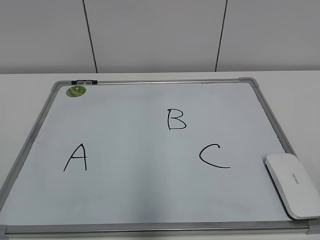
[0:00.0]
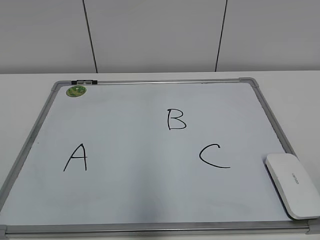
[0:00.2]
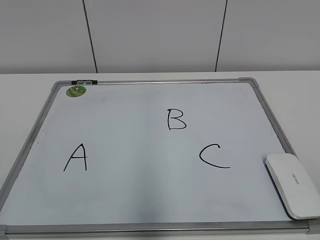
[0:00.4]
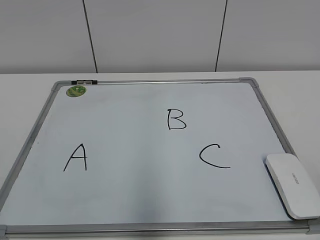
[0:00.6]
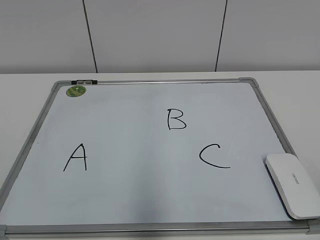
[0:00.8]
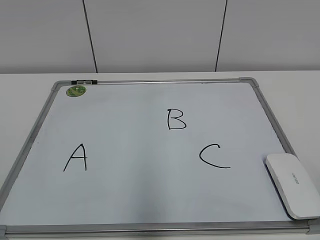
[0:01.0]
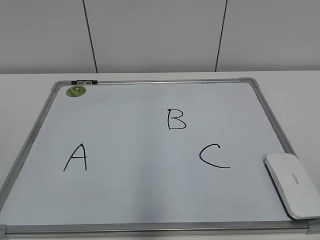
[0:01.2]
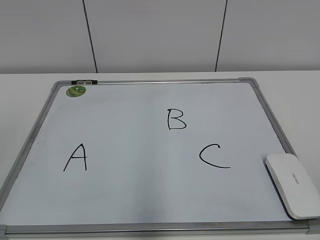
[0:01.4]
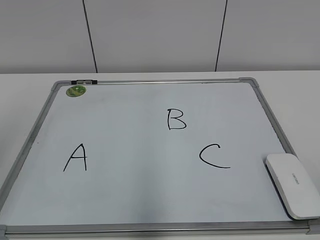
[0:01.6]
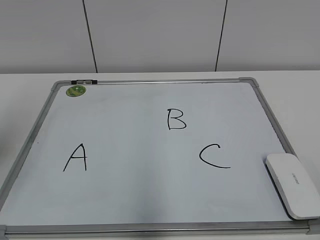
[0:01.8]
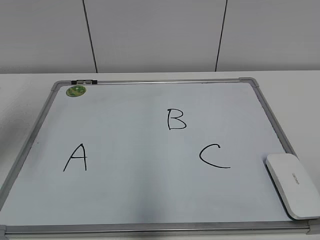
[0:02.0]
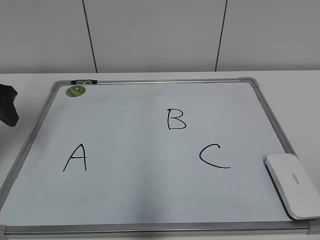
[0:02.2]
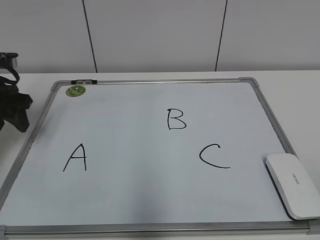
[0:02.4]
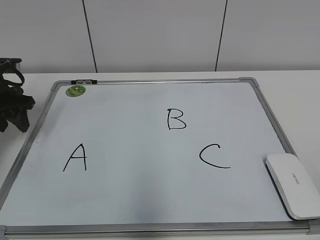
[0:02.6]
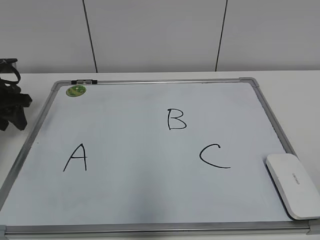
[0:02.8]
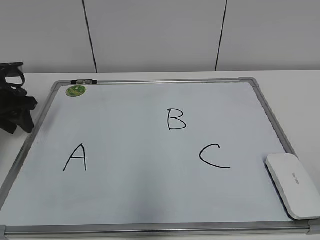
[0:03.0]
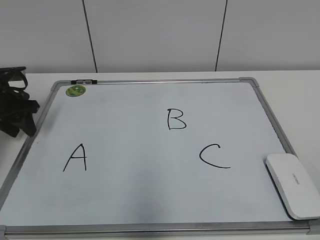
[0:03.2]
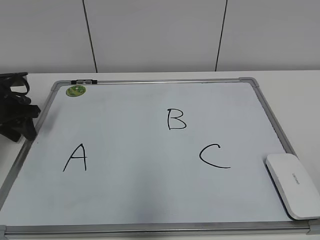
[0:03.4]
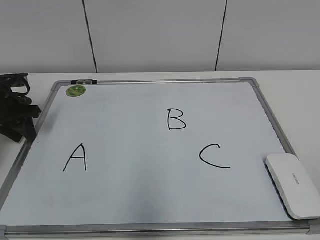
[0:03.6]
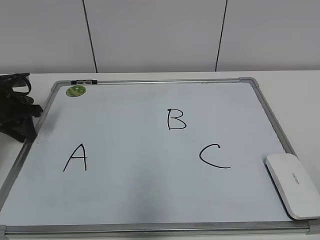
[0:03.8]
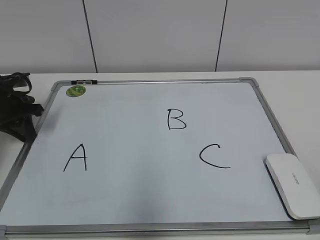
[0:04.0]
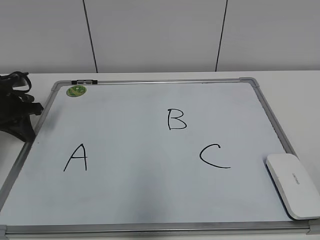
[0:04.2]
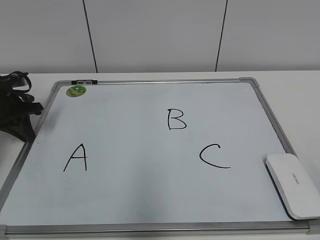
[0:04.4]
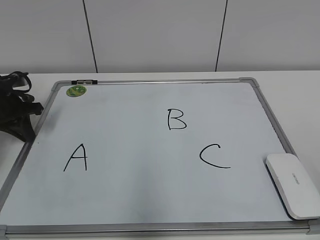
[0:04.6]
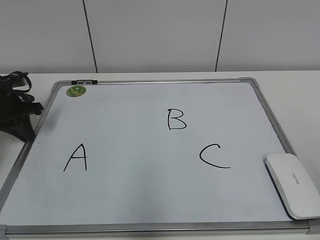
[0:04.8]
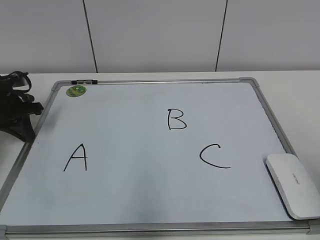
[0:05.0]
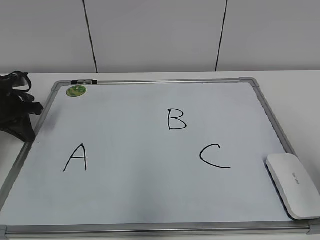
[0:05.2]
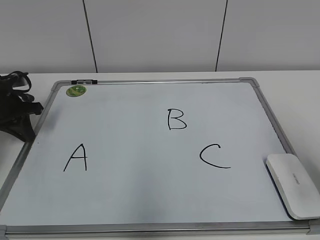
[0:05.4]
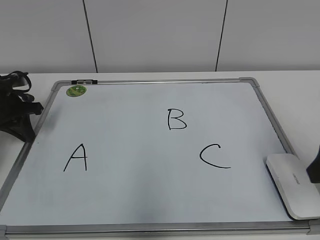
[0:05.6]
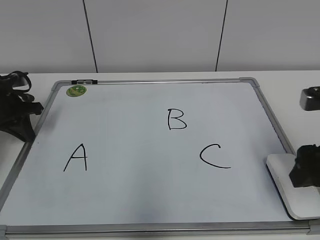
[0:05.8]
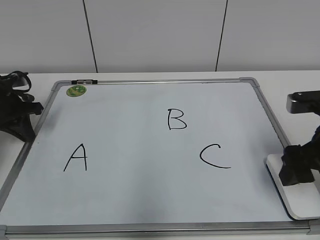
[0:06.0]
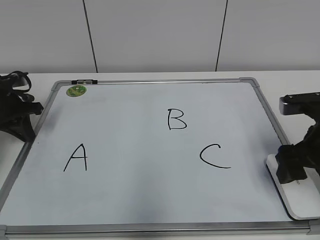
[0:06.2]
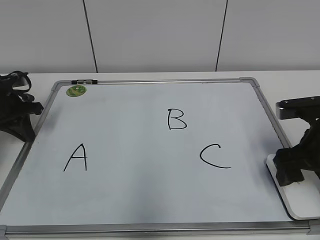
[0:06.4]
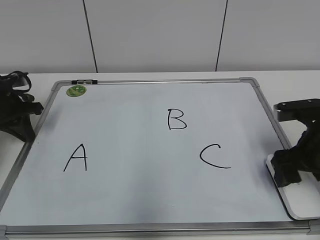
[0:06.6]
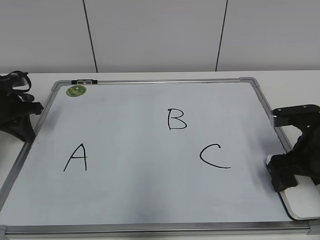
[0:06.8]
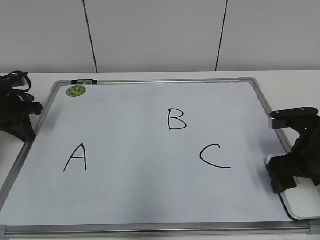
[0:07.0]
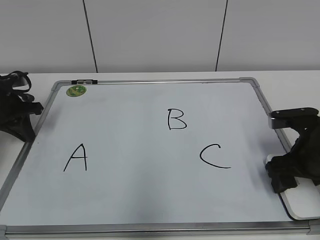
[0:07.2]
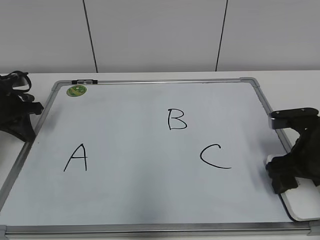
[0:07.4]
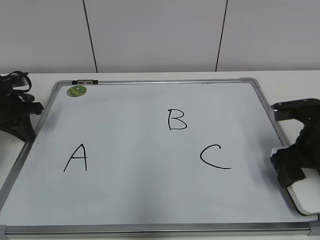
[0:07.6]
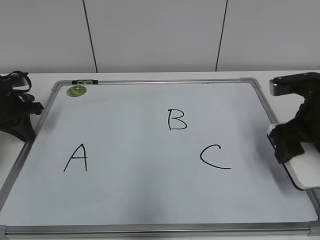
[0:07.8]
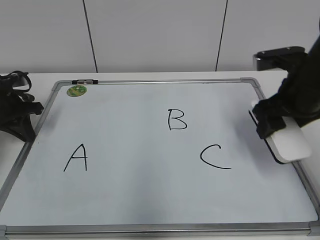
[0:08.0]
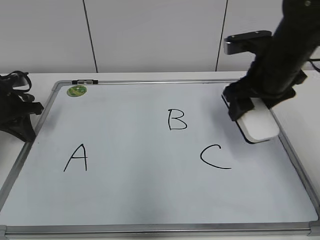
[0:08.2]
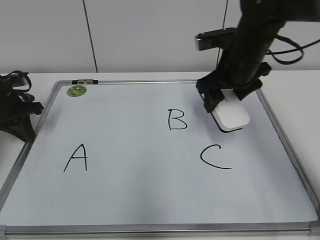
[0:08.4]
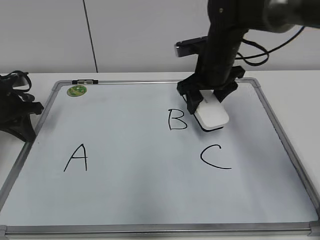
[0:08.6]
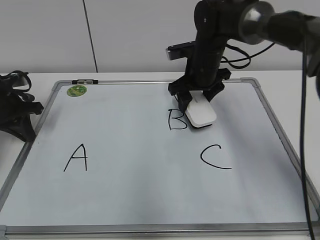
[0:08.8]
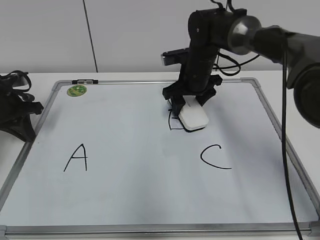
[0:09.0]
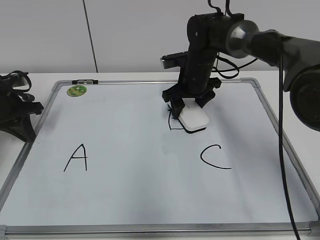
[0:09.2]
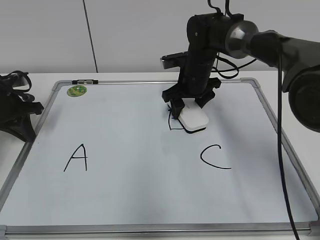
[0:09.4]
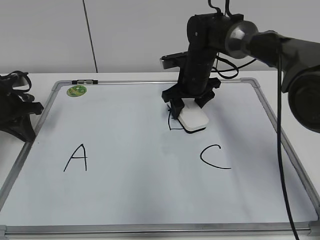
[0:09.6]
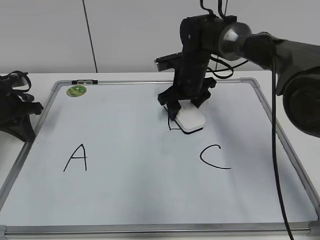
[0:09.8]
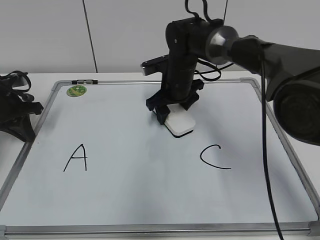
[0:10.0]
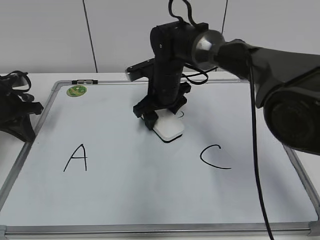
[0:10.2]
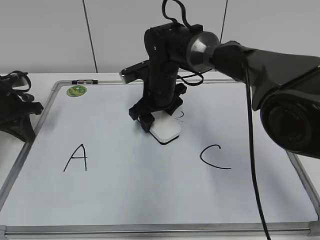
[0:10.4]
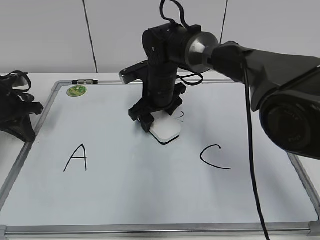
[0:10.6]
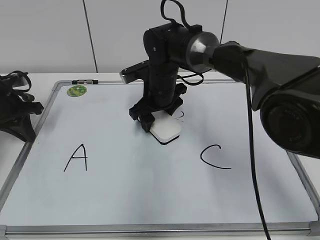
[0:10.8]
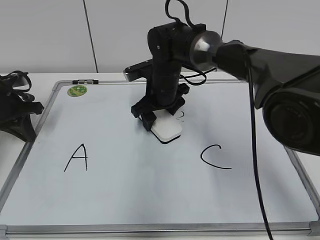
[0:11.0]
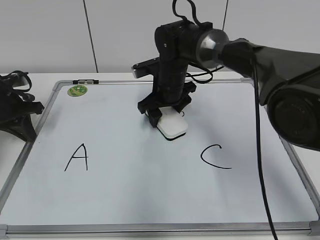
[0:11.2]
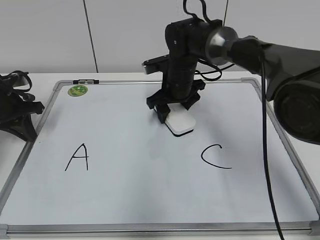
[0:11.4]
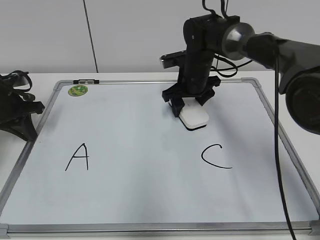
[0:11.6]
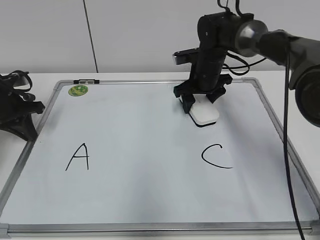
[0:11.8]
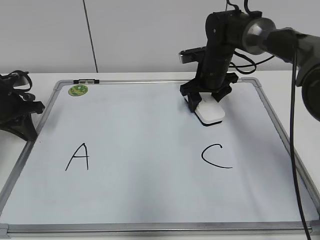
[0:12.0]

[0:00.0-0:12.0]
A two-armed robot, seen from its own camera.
Task of the whole recording: pick up the eraser on the blackboard and erase the letter "B".
Step, 0:00.0 to 0:03.8: Hold the drawing board steady with your left hand.
Step, 0:04.0 to 0:07.2: Grab the eraser with your right hand.
Step, 0:07.4 to 0:11.8: Erase the letter B with your right hand.
0:01.6 to 0:03.0: The left gripper goes approximately 30 cm forward and downward, and closes.
0:03.0 to 0:04.4: The left gripper closes up.
0:04.4 to 0:06.0: The right gripper travels forward by roughly 25 cm, and opens.
0:06.0 to 0:07.6: The right gripper closes.
0:07.6 to 0:09.0: The right gripper travels forward and to the left by some 25 cm.
0:09.0 to 0:10.4: The right gripper moves to the left, approximately 10 cm.
0:10.4 to 0:12.0: The right gripper is displaced to the right and forward by roughly 15 cm.

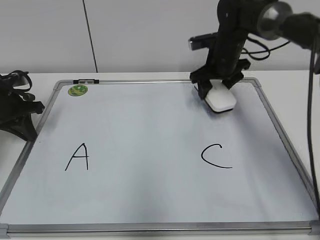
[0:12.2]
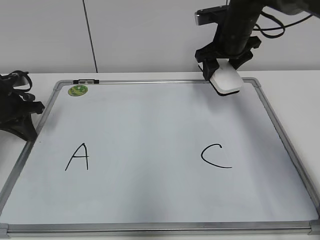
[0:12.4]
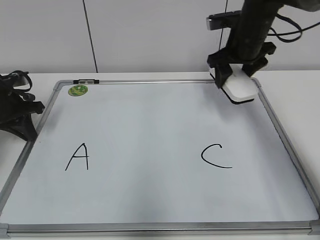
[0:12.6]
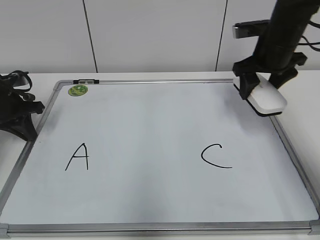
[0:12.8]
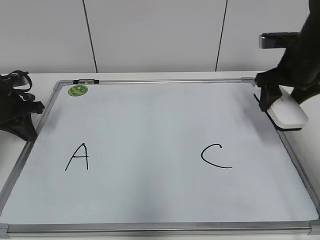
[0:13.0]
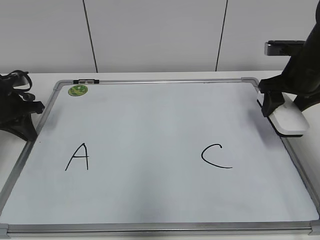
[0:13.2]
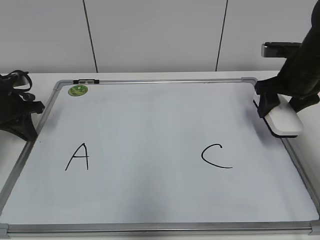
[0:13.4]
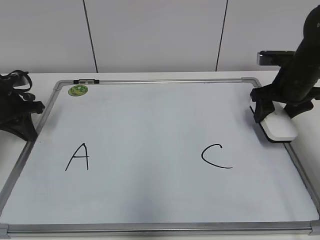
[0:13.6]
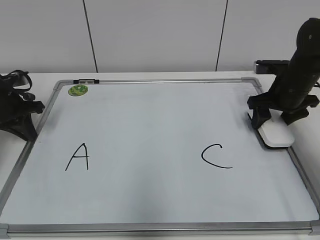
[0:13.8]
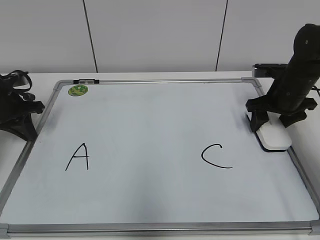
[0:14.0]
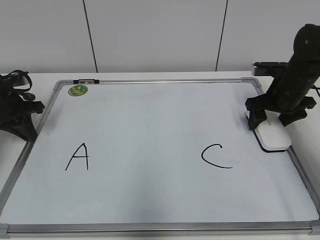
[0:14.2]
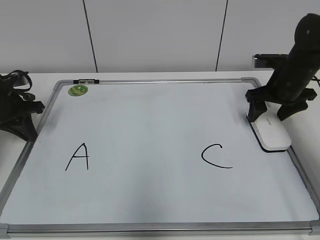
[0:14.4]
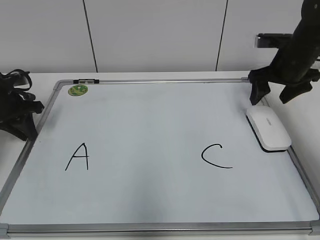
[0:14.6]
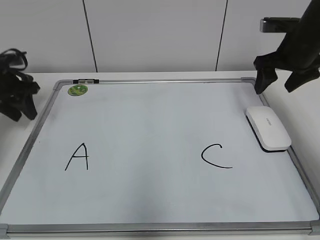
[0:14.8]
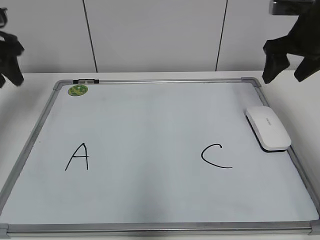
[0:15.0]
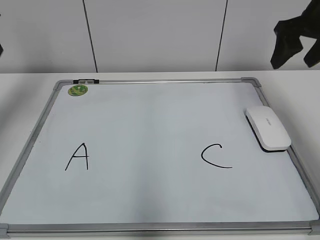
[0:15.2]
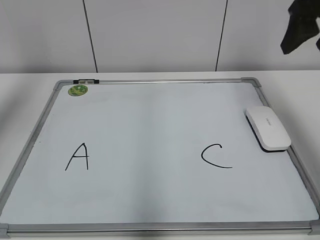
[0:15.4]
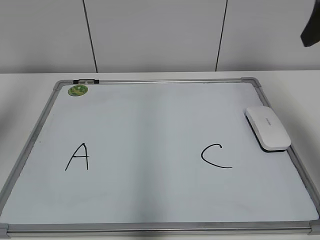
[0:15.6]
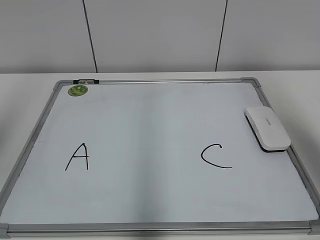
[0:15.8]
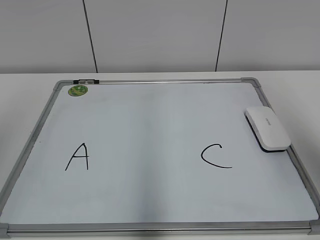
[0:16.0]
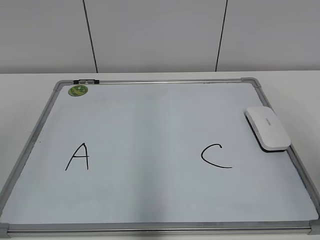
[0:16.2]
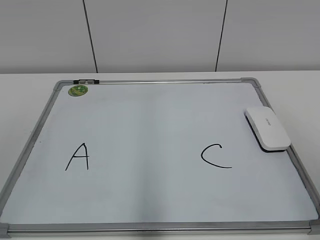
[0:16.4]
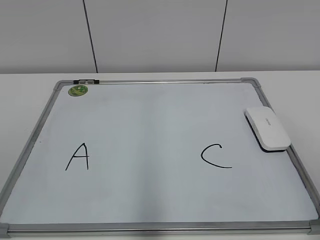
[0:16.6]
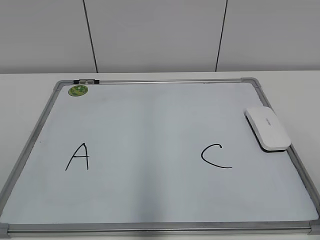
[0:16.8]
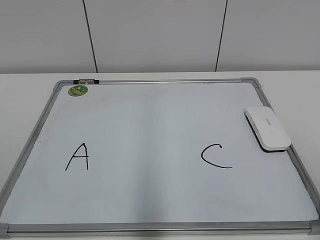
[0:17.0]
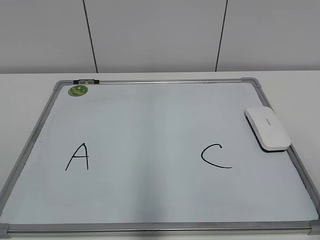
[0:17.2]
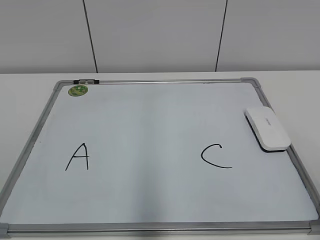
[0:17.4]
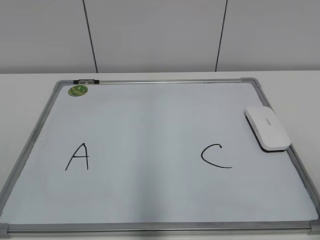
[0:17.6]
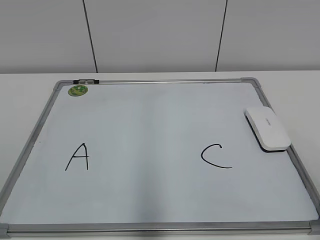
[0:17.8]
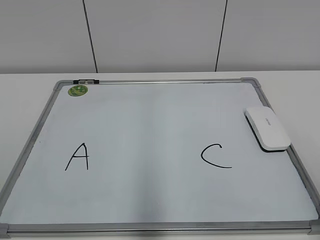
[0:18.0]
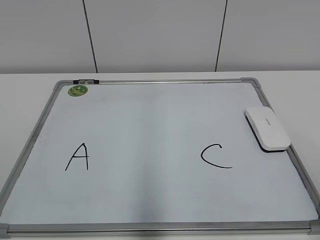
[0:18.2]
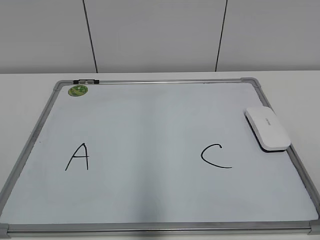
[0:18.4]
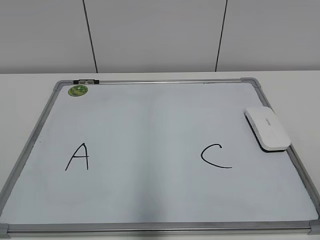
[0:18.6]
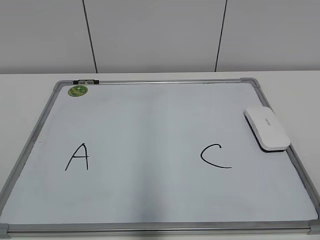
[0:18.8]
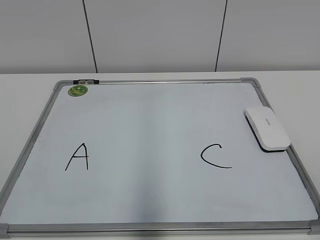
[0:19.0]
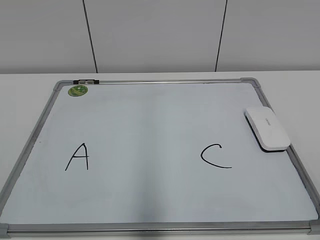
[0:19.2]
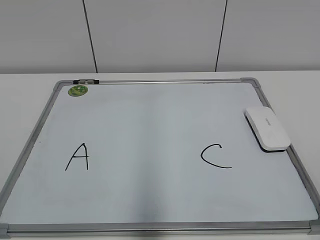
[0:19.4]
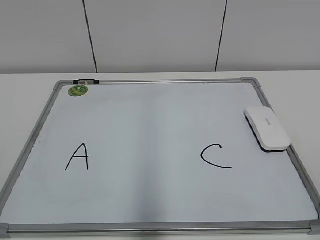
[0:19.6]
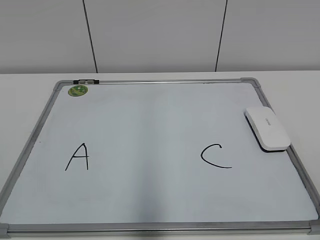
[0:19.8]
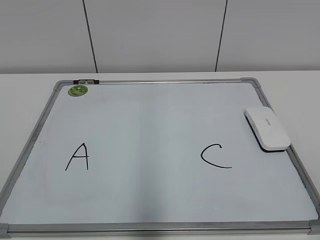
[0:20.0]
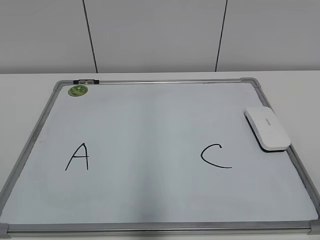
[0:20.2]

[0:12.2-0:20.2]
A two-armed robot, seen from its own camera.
Task of the whole recording: pick up the eraser on the blackboard and erase the letter "B".
0:12.2 to 0:13.8: The right gripper shifts approximately 15 cm to the right and backward.
0:13.8 to 0:15.4: The two grippers go roughly 25 cm upward. The left gripper opens up, while the right gripper opens.
0:15.4 to 0:17.0: The right gripper travels backward by some 30 cm, while the left gripper moves backward and downward, some 30 cm.
0:18.6 to 0:20.2: The two grippers keep their place.

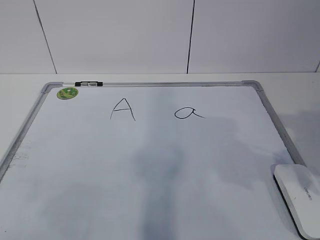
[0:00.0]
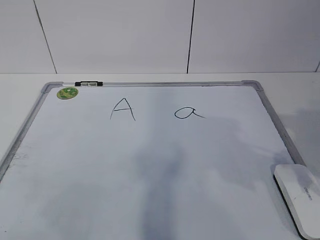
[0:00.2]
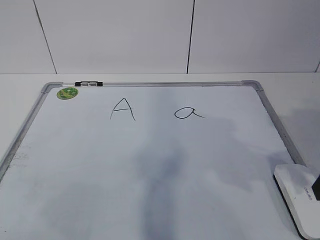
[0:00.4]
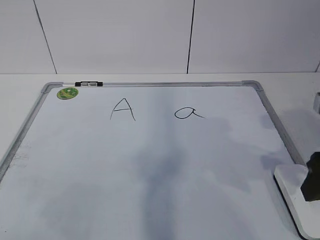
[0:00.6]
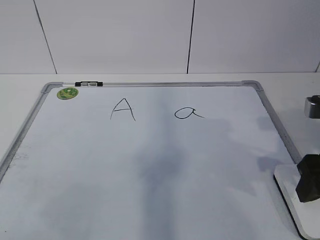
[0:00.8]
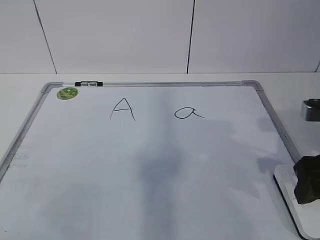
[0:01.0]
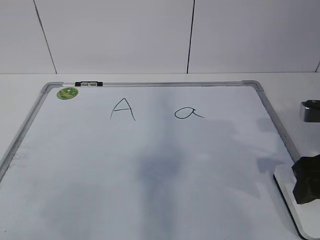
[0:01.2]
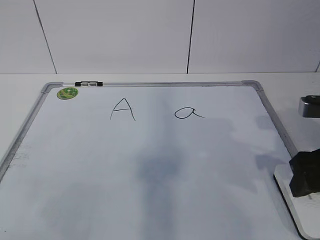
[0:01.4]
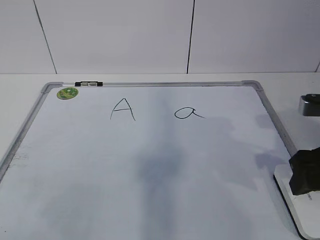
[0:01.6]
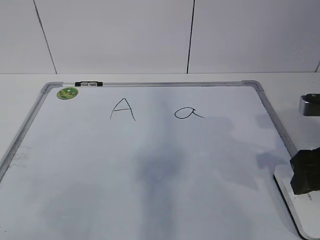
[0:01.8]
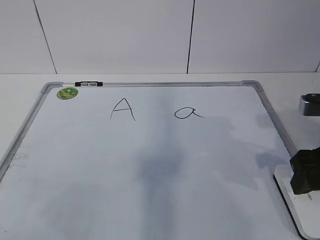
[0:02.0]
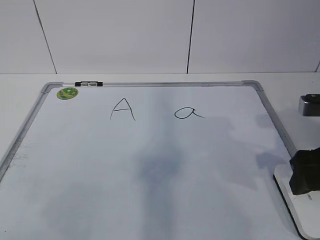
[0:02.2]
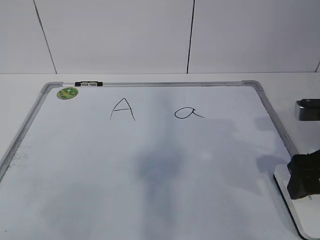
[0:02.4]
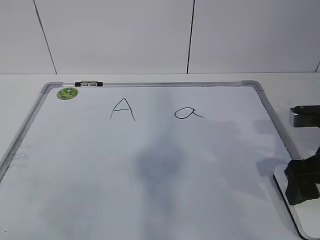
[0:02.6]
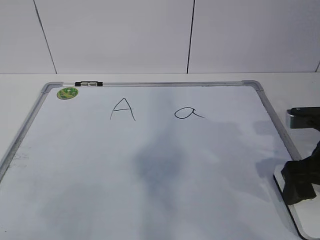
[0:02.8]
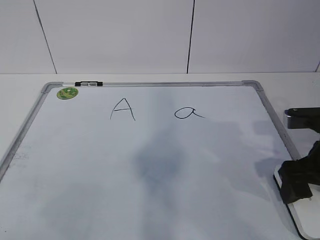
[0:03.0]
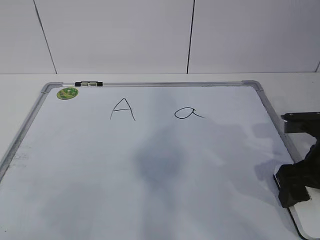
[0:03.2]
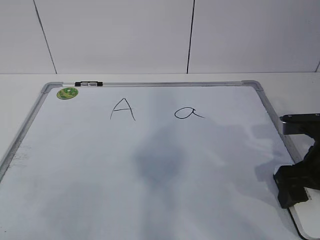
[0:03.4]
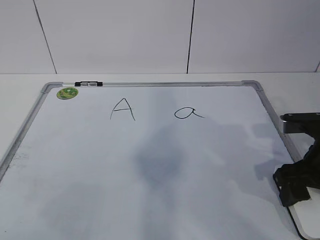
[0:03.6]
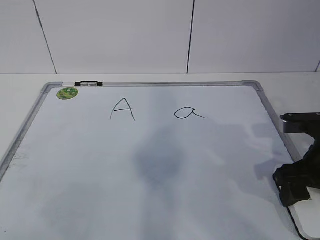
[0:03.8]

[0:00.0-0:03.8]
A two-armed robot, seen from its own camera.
Task of the whole recording: pick up the eraser on the blackboard and erase the letter "a".
Step, 0:00.0 to 0:02.2: Grab the eraser with your right hand.
0:00.0 to 0:01.2: The right gripper moves about 5 cm.
0:01.2 to 0:02.6: The right gripper opens up.
0:02.6 to 0:03.8: The right gripper closes its fingers.
